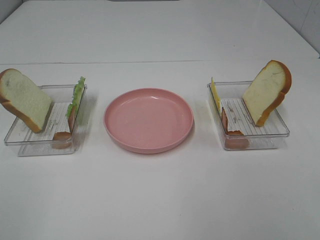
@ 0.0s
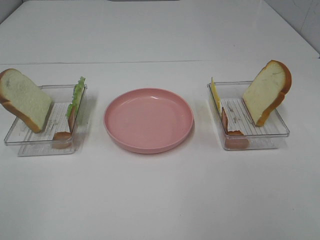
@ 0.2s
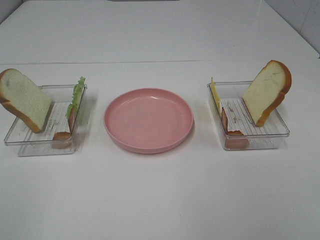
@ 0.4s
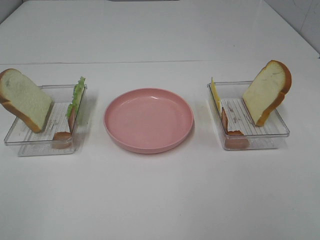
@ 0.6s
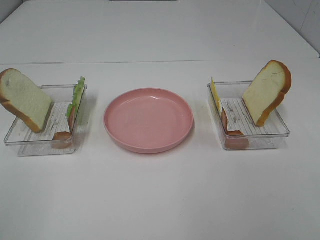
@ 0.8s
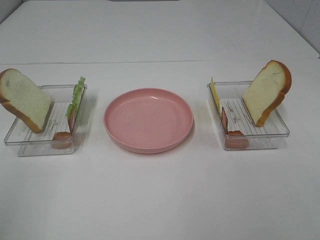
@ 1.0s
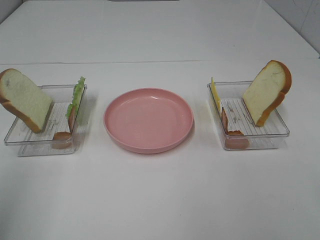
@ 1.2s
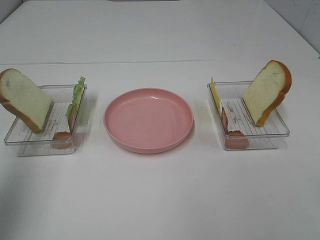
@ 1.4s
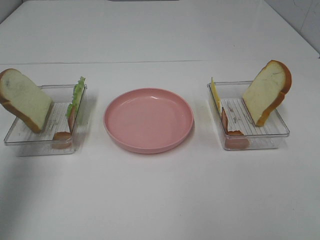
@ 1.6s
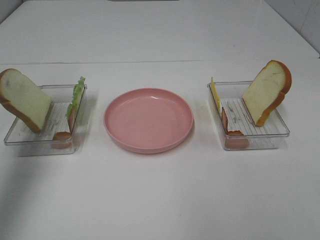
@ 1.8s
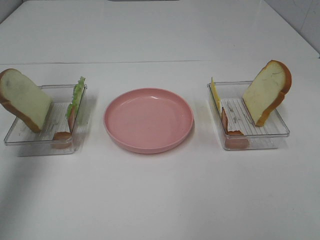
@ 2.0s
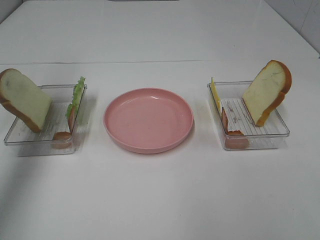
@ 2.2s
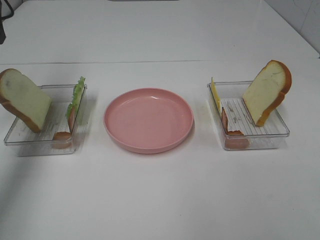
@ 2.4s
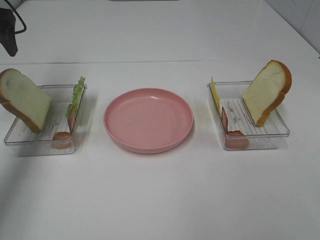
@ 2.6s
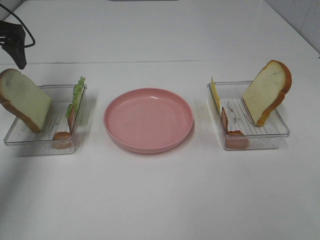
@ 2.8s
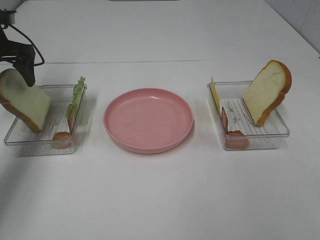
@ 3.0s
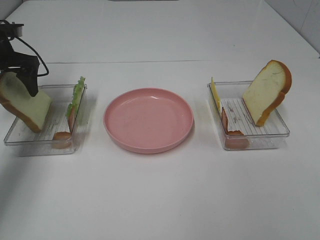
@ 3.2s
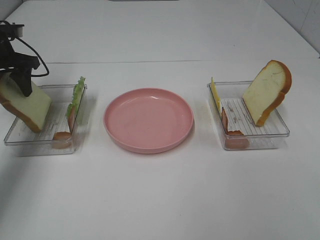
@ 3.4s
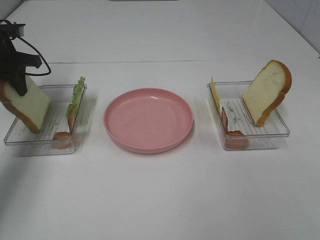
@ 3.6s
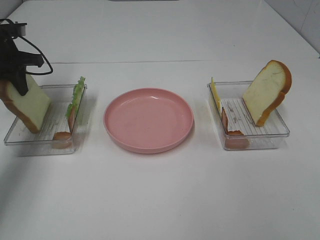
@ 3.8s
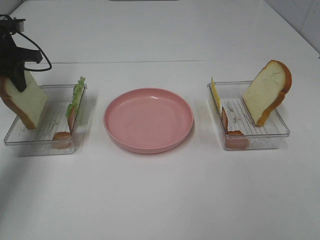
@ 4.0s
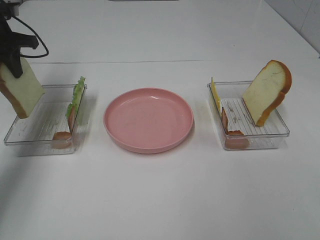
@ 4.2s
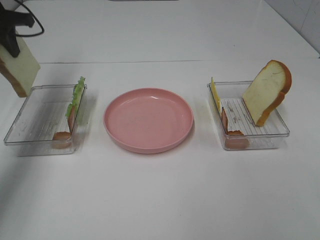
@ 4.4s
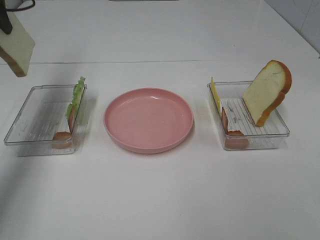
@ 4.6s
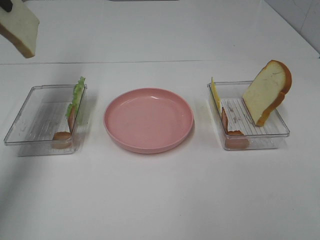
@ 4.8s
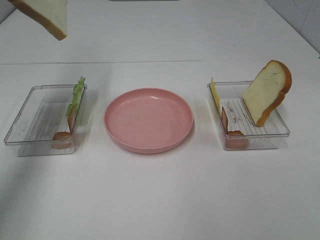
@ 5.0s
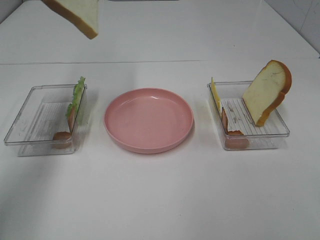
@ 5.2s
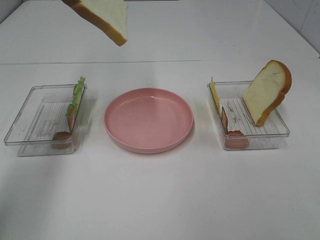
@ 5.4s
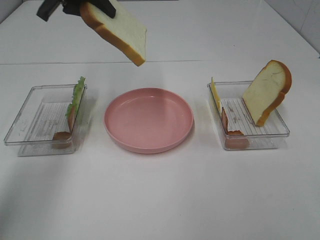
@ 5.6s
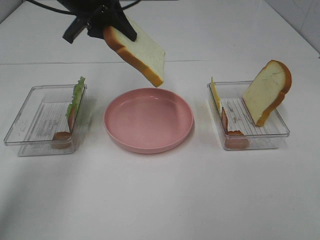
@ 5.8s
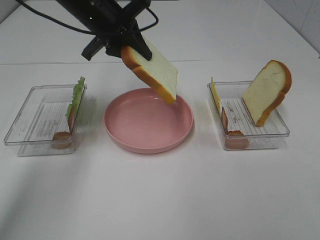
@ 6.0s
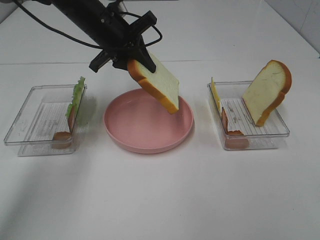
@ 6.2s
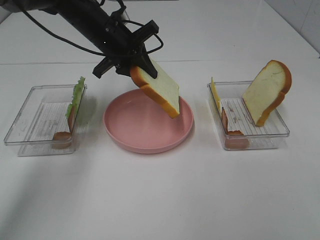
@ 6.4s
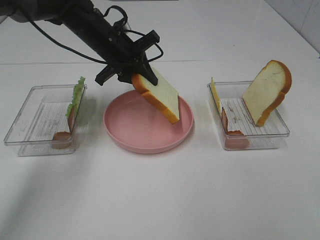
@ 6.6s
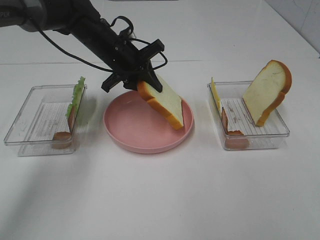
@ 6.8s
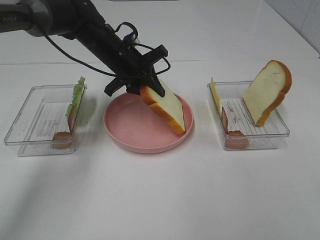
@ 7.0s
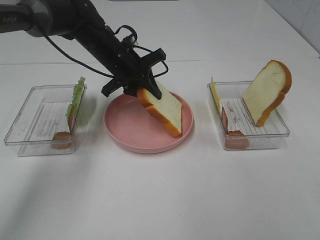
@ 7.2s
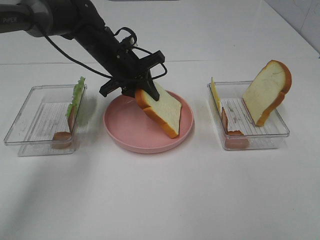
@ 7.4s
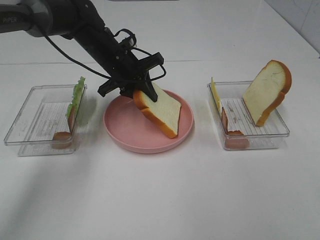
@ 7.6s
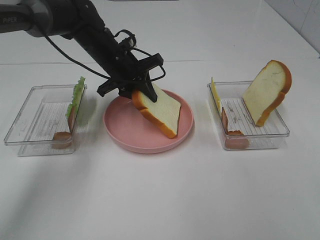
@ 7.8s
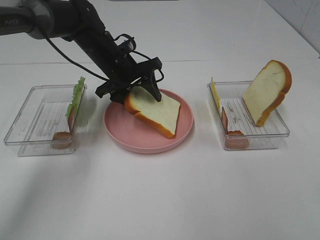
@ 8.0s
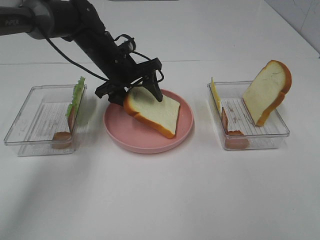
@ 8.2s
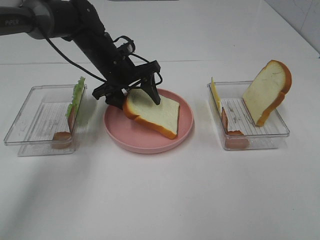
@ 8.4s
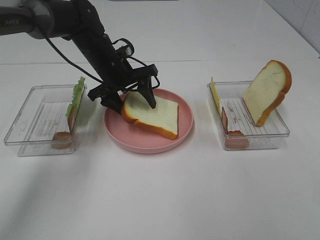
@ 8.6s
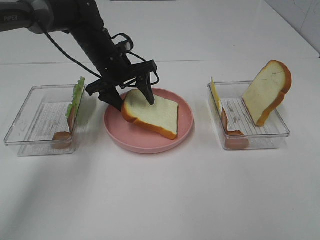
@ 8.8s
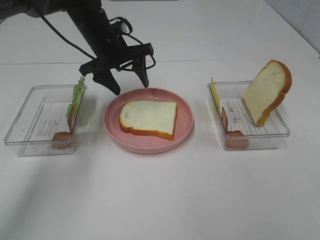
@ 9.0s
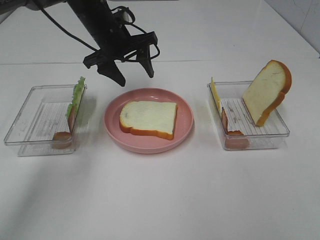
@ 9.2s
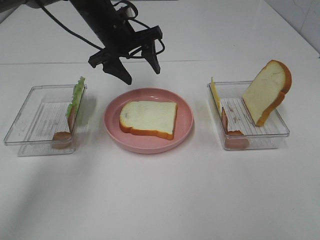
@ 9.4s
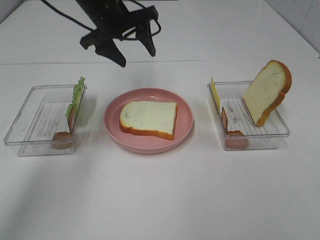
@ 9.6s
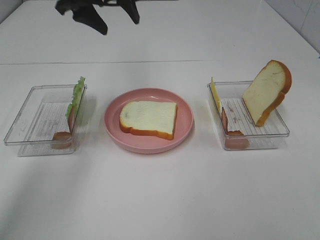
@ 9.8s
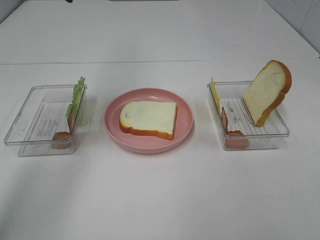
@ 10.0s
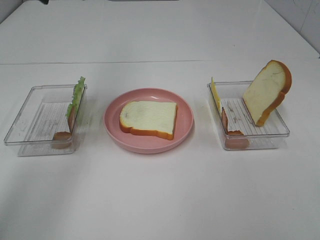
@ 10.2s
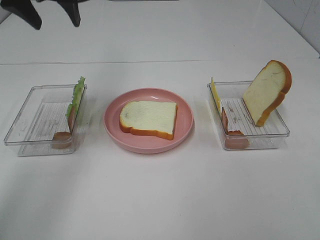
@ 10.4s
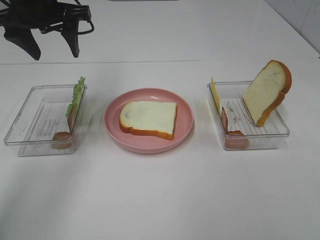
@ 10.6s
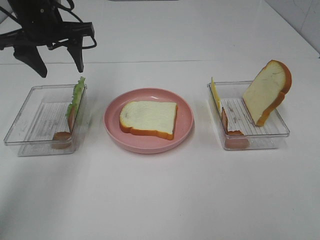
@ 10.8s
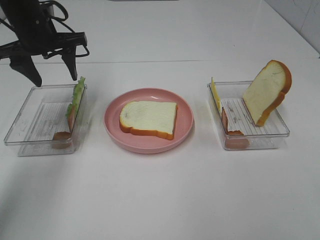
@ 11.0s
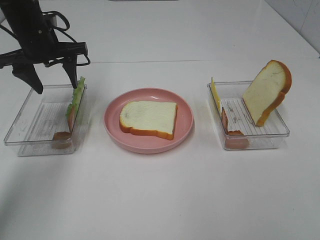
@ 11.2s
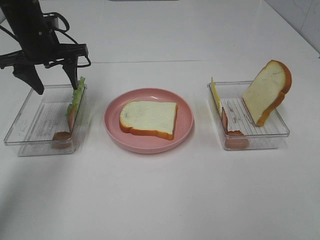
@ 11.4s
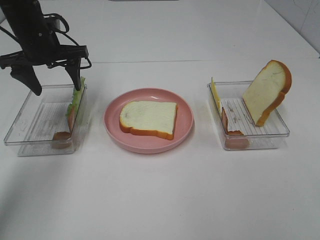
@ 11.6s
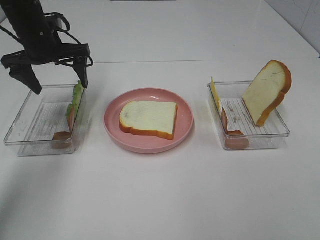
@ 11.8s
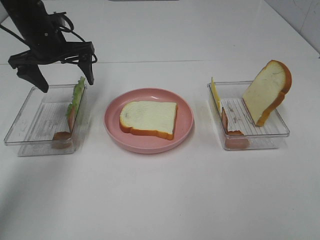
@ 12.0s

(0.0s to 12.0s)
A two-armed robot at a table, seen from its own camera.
Task of the whole recording: Make sandwiches.
Step, 0.0s - 3.6s: Left hand:grab the bread slice.
Step, 3.8s - 9.0s: Left hand:place the bread slice on the plate.
0.0s - 1.6s: The left gripper moves forward, approximately 25 cm.
1.6s - 3.0s: The left gripper shifts about 25 cm forward and downward.
3.0s - 4.4s: The left gripper heads upward, covering approximately 5 cm, and closes.
4.4s - 6.0s: The left gripper heads to the right, covering roughly 20 cm.
6.0s - 7.6s: The left gripper travels downward by some 10 cm.
7.6s - 9.0s: The left gripper opens its fingers.
9.0s - 10.4s: The left gripper heads upward, to the left and backward, covering some 20 cm.
10.4s - 12.0s: The left gripper moves downward, roughly 15 cm.

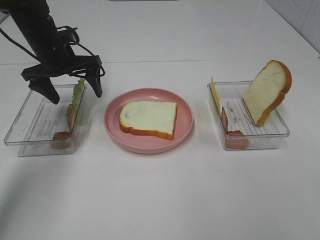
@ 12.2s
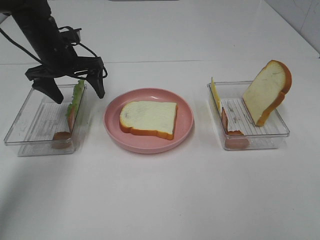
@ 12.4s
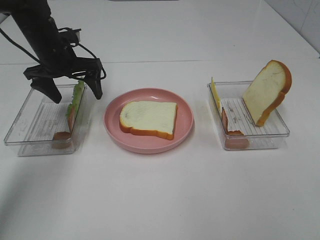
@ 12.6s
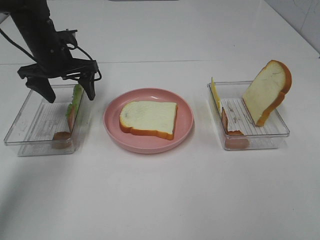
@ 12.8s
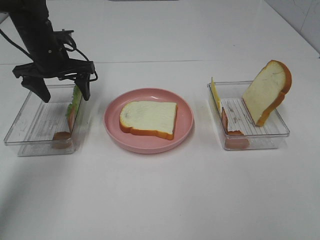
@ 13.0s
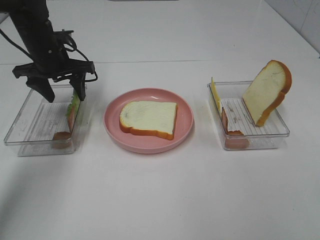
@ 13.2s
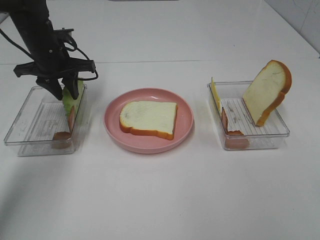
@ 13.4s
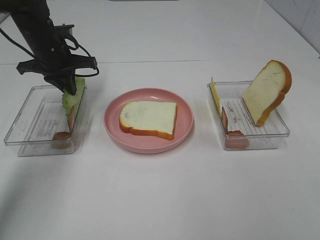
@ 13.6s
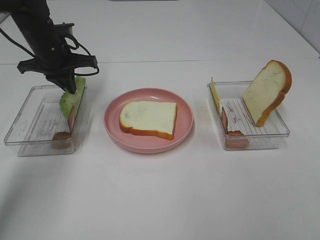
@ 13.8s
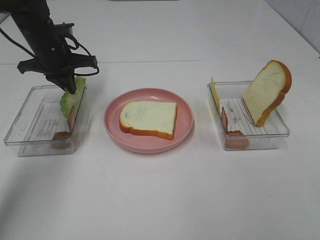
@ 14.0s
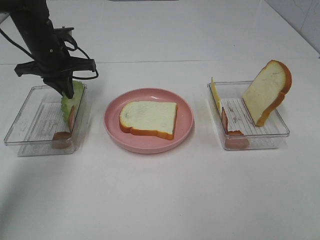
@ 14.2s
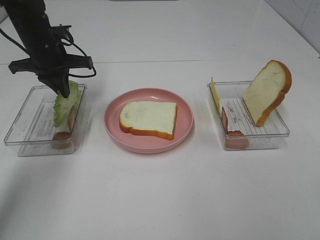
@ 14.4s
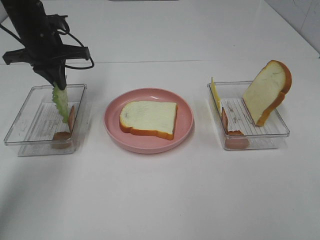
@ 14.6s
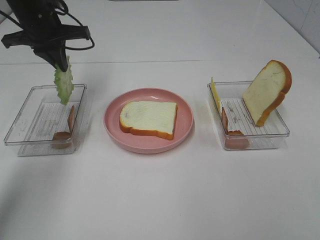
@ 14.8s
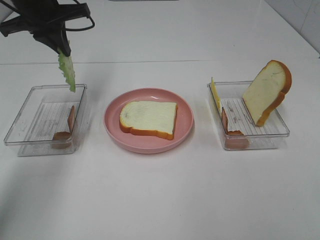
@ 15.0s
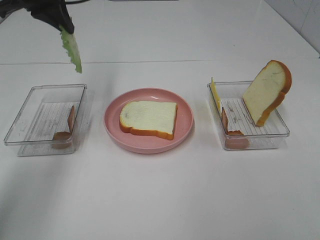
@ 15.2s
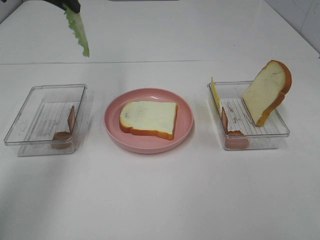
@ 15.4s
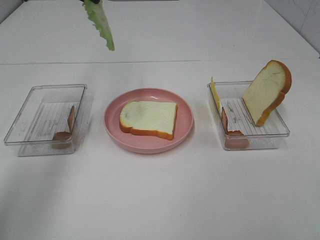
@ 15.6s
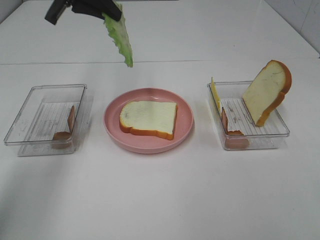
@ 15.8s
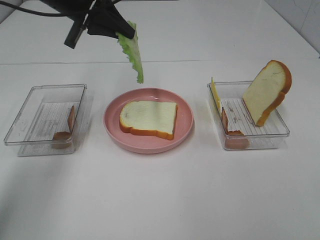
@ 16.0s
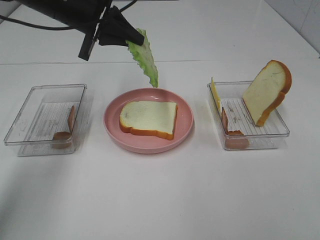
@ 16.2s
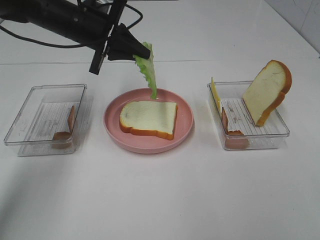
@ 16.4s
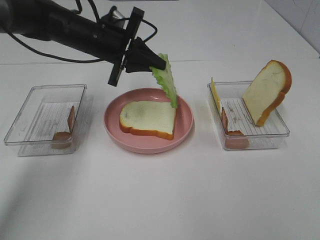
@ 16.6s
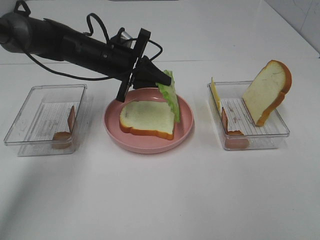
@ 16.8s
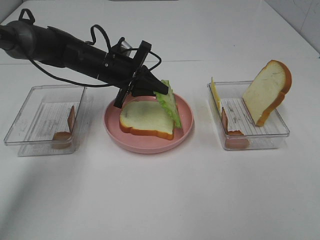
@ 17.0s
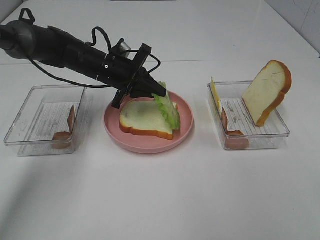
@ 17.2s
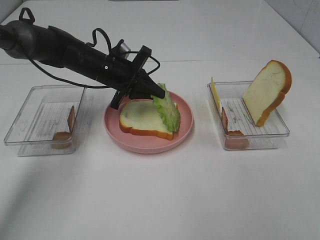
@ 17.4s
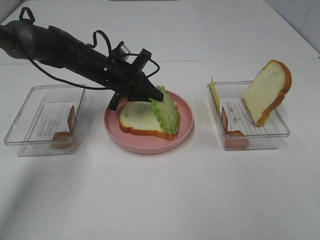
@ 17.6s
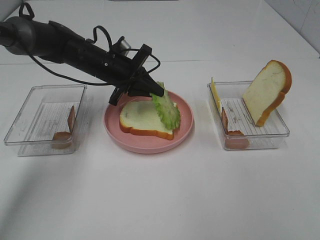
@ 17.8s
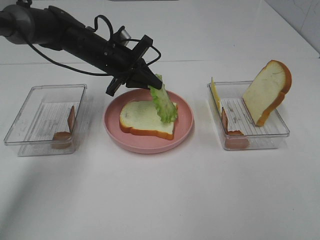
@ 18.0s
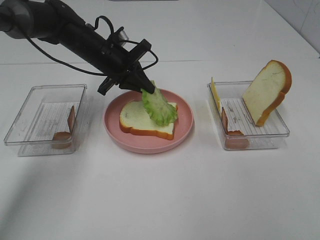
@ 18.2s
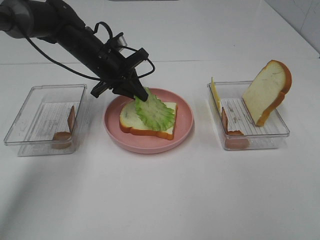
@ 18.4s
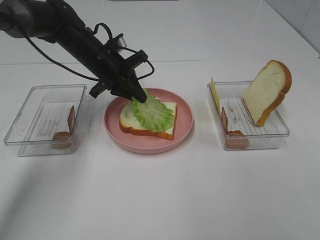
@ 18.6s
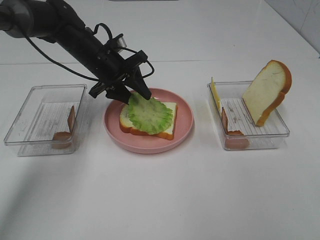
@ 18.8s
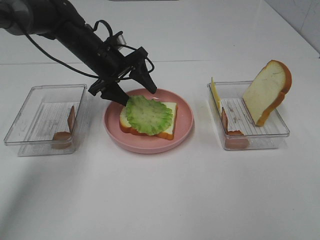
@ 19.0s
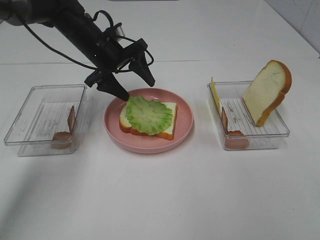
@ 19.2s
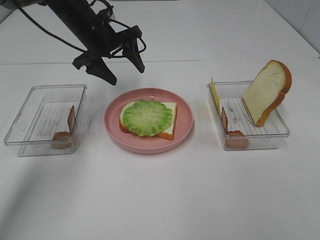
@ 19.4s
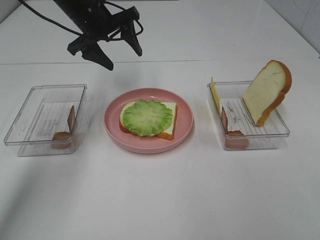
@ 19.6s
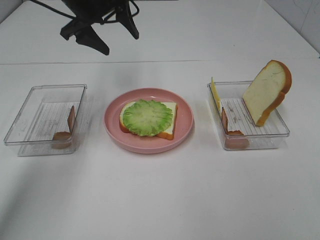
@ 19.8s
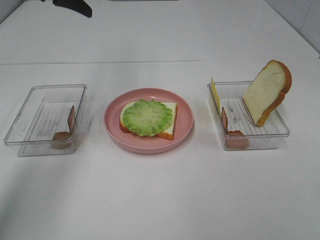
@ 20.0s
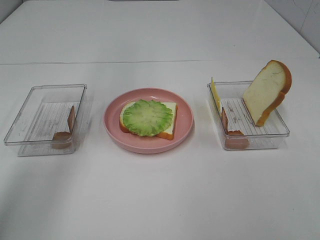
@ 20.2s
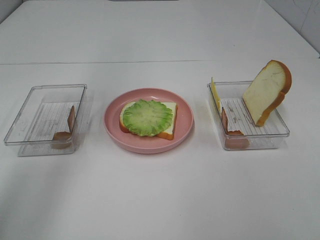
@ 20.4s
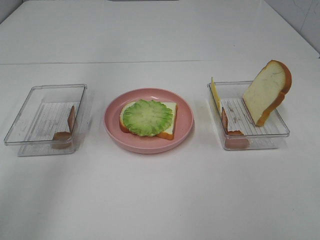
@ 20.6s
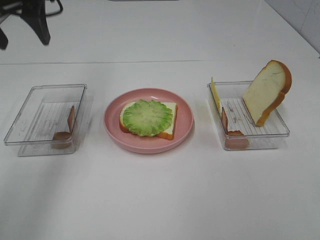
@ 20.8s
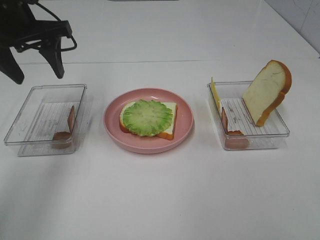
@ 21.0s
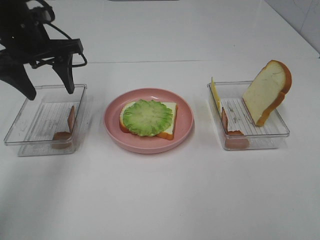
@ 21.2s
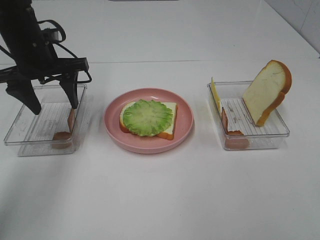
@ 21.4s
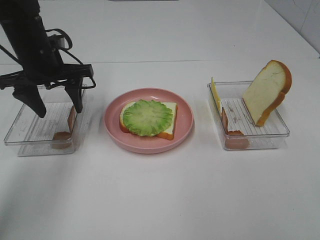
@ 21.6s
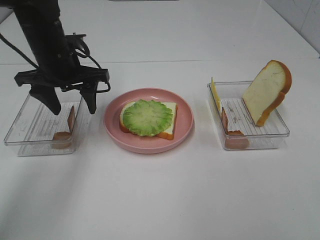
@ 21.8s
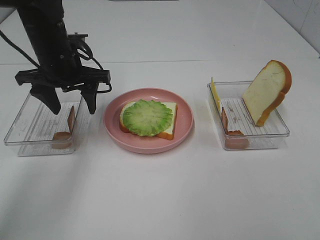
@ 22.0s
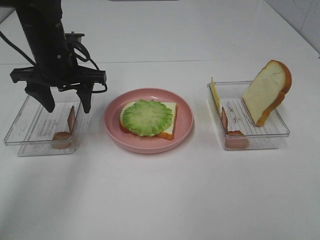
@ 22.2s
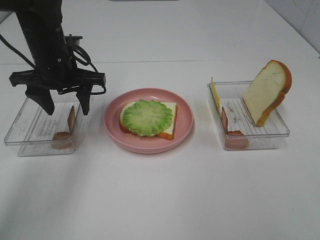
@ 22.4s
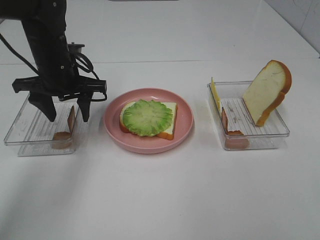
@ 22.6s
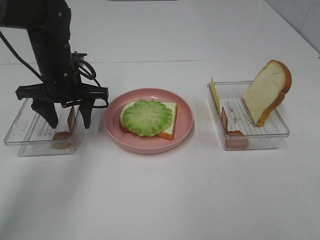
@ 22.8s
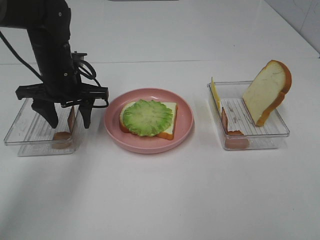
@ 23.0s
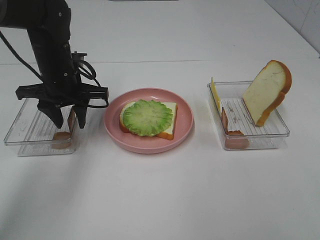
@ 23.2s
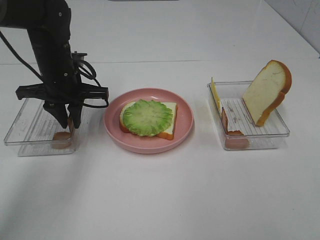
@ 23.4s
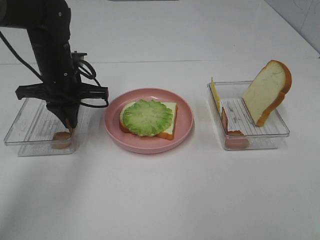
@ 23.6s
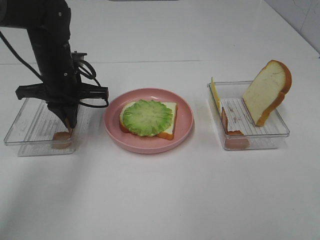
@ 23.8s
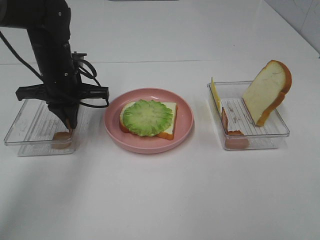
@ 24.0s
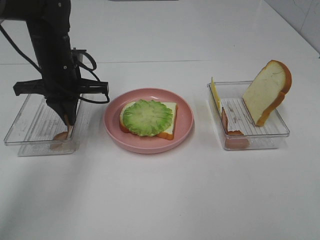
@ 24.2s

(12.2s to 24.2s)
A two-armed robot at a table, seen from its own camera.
Task of the whole recording: Make sandwiches.
Step, 13.8s - 19.2s: Left hand:place the lettuce slice on the bread slice.
Step, 19.4s - 23.4s: Left hand:grab the bacon.
12.2s - 13.8s: The left gripper closes up.
13.8s - 15.2s: The left gripper moves upward, approximately 15 cm.
15.2s - 16.6s: The left gripper is displaced downward and to the right by some 15 cm.
18.2s - 19.8s: The left gripper goes approximately 10 cm upward, and opens its fingers.
19.8s - 21.2s: The left gripper shifts roughly 10 cm backward and to the left, and goes upward and returns, about 15 cm each way.
21.2s - 22.6s: The left gripper is displaced downward by some 5 cm.
22.6s - 24.2s: The left gripper closes up.
